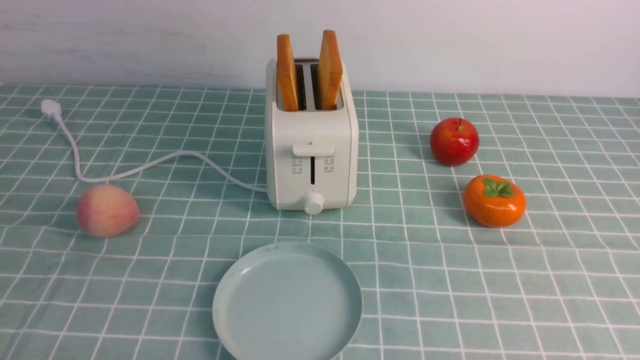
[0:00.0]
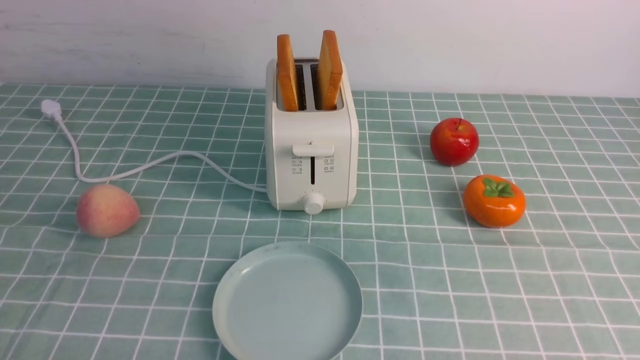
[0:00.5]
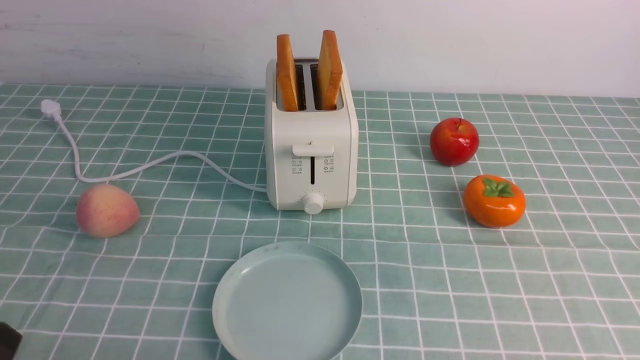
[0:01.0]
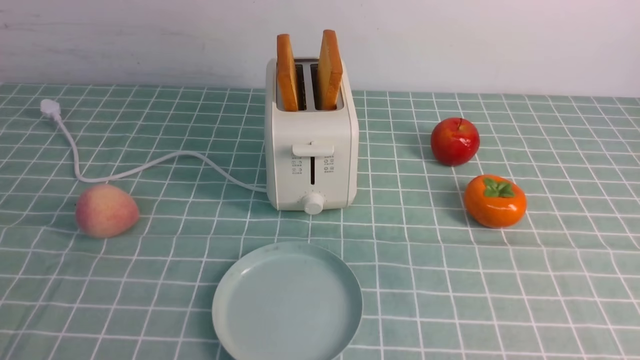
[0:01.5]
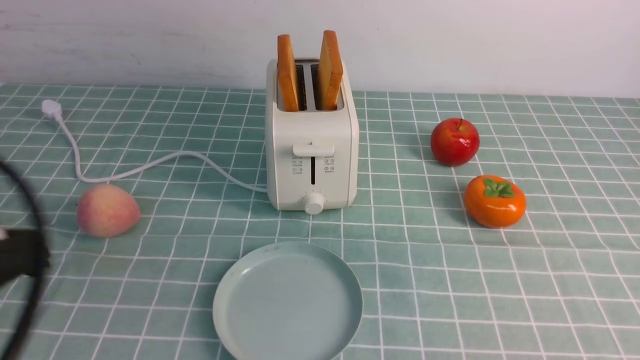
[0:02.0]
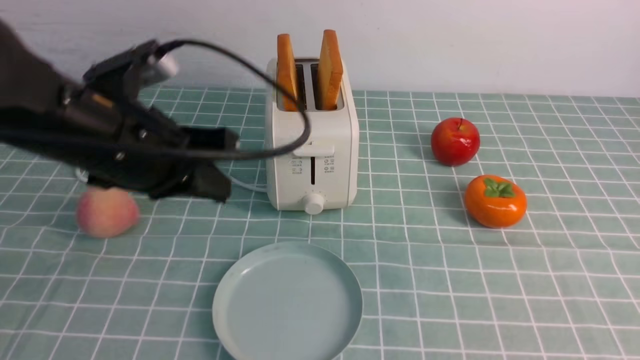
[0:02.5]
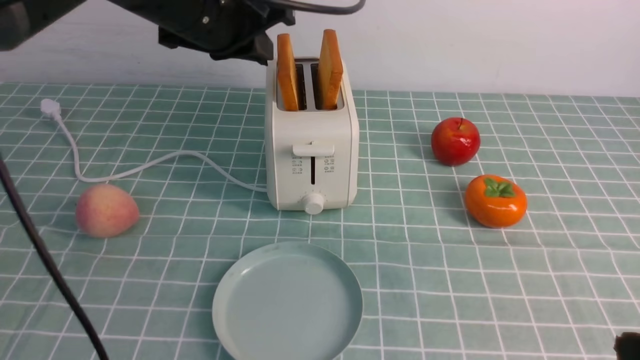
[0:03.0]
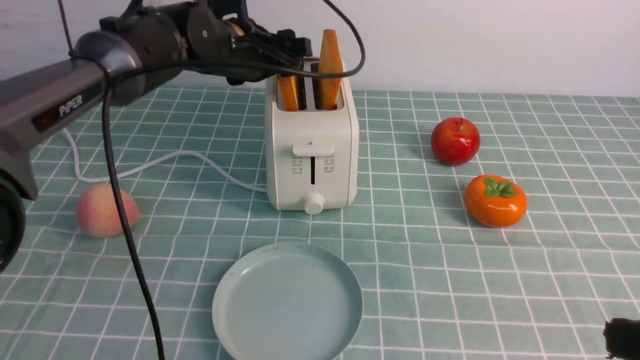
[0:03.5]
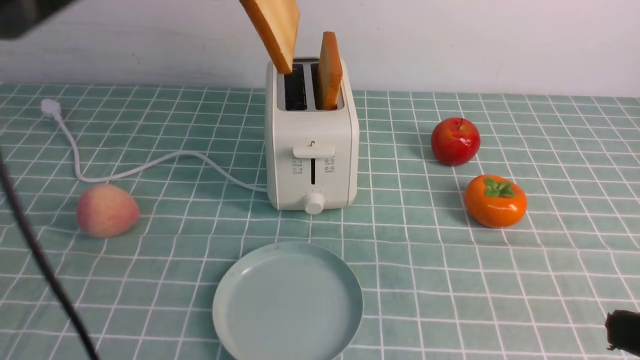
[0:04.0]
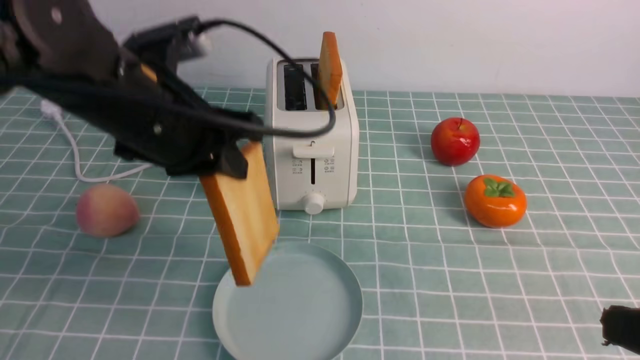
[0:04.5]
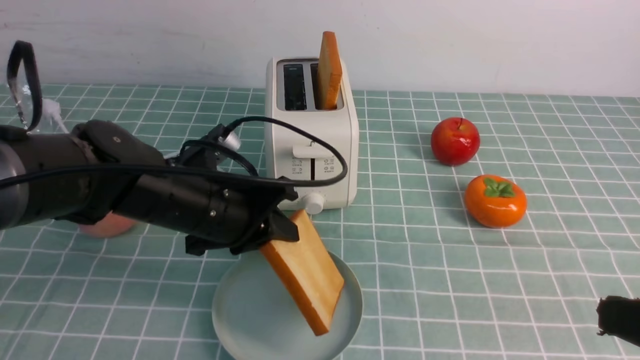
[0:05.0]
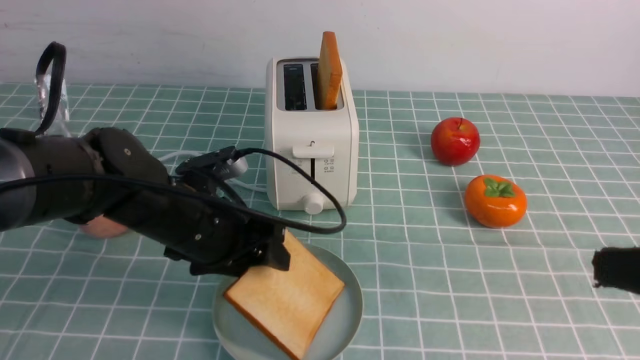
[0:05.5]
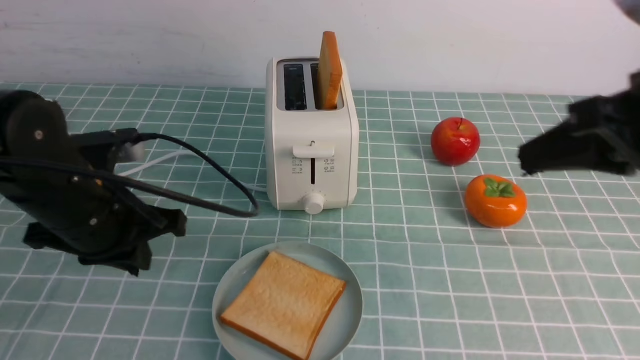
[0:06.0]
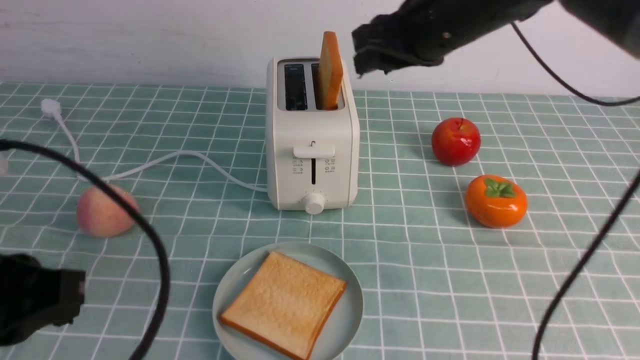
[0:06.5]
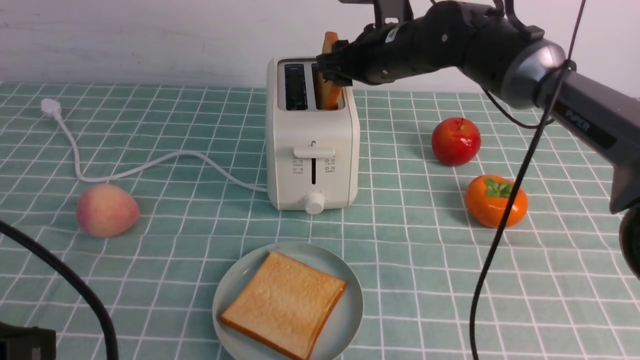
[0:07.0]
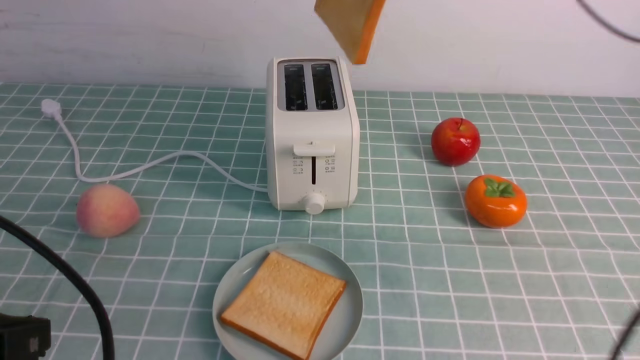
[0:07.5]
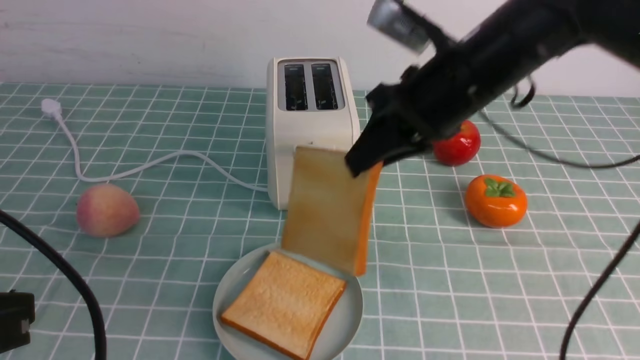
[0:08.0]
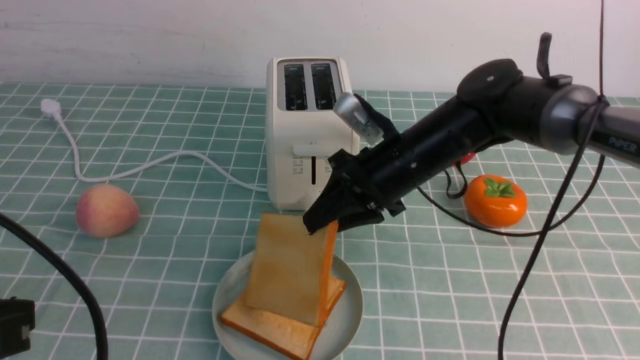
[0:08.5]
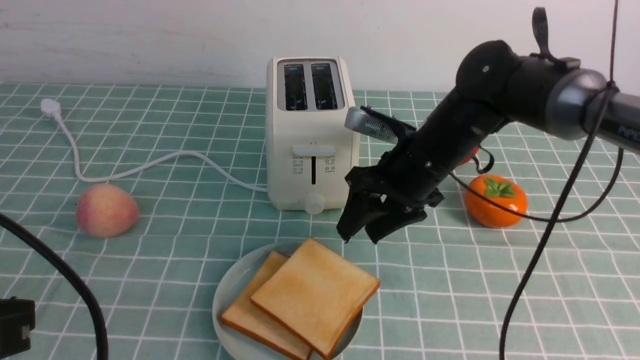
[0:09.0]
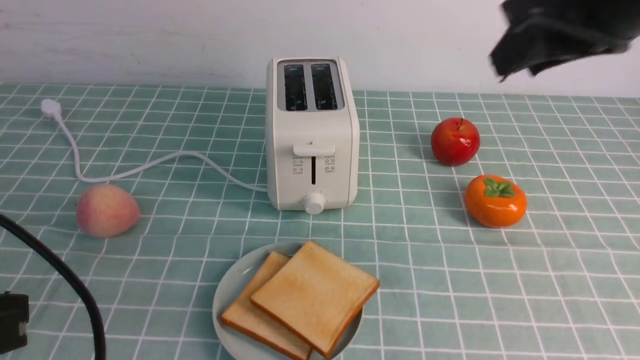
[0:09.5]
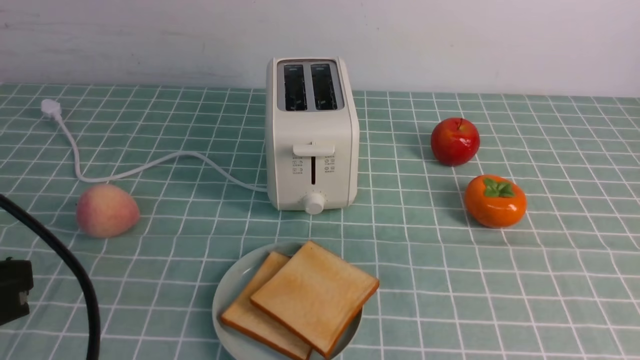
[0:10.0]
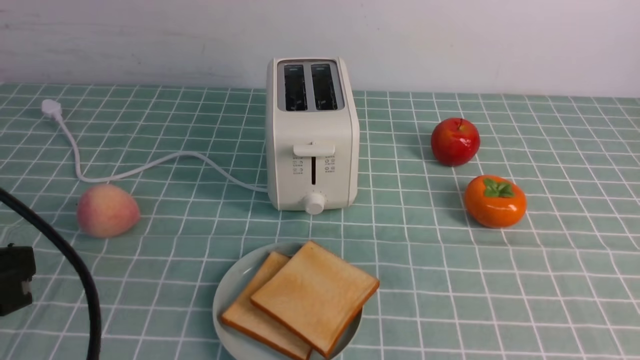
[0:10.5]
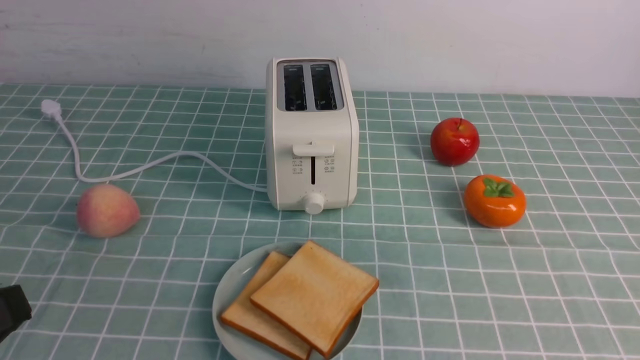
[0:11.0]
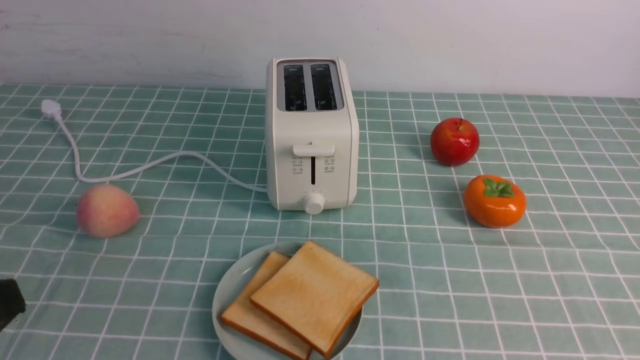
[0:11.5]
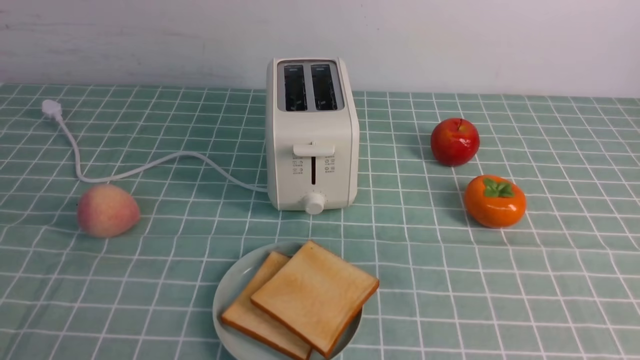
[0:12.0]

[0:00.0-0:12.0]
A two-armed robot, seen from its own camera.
Task of the whole recording: take toasted bread from bread machine on blue coffee table place on plate.
Step, 0:00.0 to 0:04.0: use the left arm to take out a slice of bread.
Step, 0:04.5 to 0:05.5: use the left arm to put a slice of bread into the empty plate.
Step, 0:06.0 to 0:07.0: use the right arm to take out a slice of bread.
Step, 0:07.5 to 0:09.0: use the right arm to put a slice of bread into the plate.
0:00.0 to 0:02.0: The left gripper goes about 20 cm upward and forward, and closes up.
0:02.0 to 0:04.0: The left gripper shifts about 30 cm forward, and opens, then closes once more; the right gripper shifts approximately 10 cm upward, and closes up.
0:04.0 to 0:06.0: The left gripper travels downward, backward and to the left by roughly 20 cm, and opens and closes again. Meanwhile the right gripper moves forward and upward, some 15 cm.
0:06.0 to 0:08.0: The right gripper moves forward, to the left and downward, some 15 cm, and opens, then closes again; the left gripper moves backward, about 15 cm.
0:08.0 to 0:10.0: The right gripper moves backward and to the right, approximately 35 cm, and opens, then closes again.
0:10.0 to 0:12.0: The left gripper heads downward and backward, covering some 10 cm.

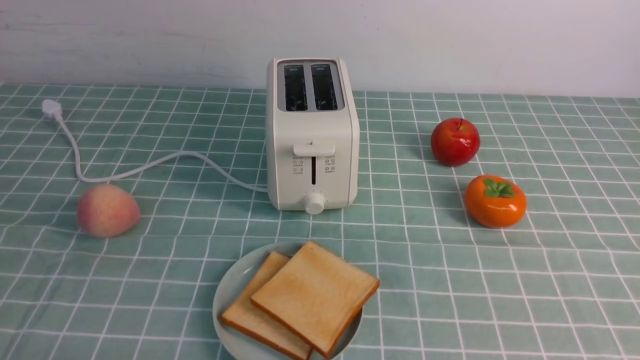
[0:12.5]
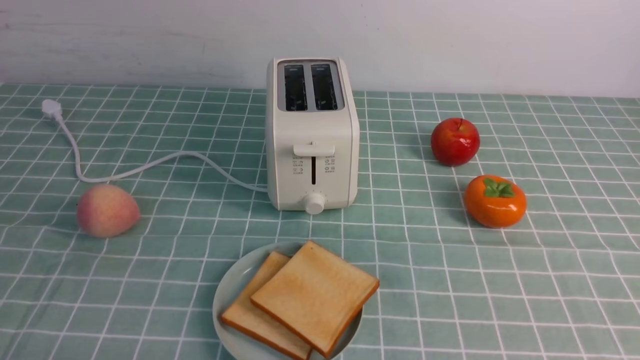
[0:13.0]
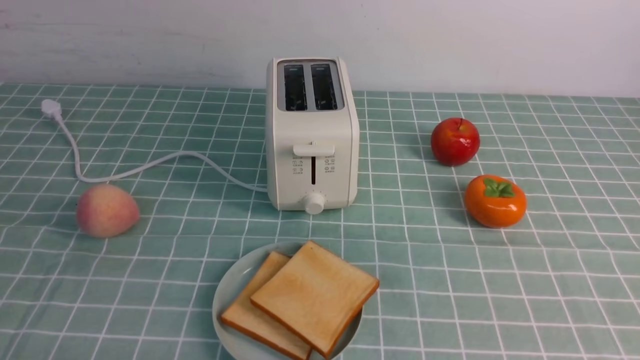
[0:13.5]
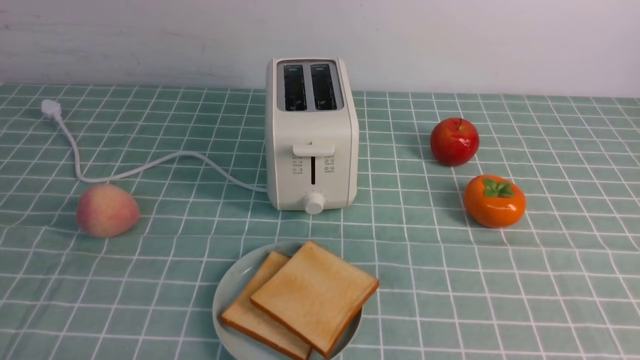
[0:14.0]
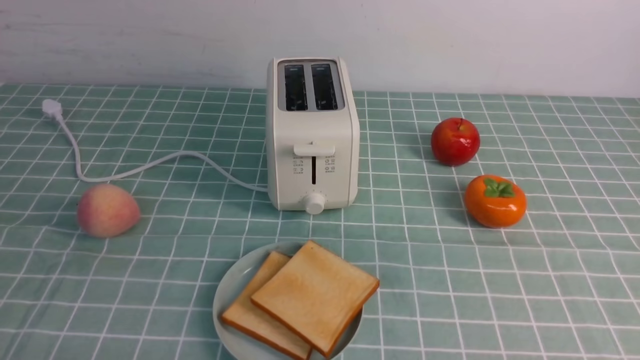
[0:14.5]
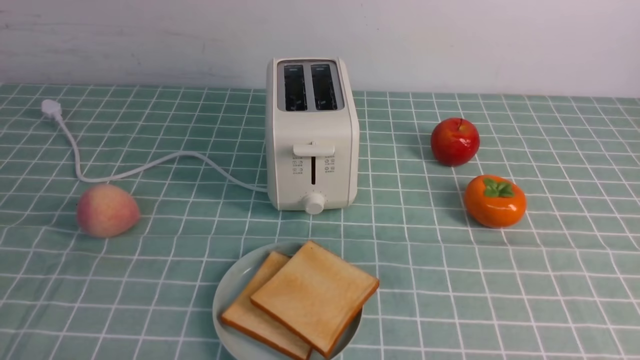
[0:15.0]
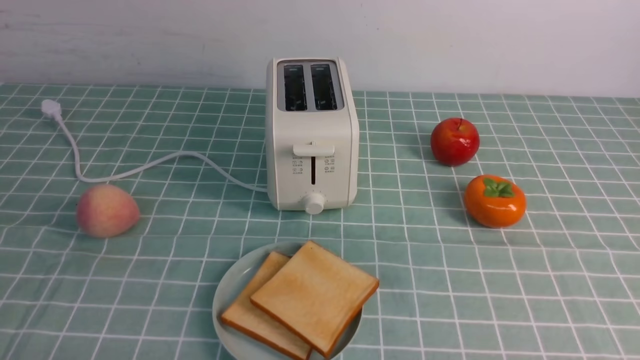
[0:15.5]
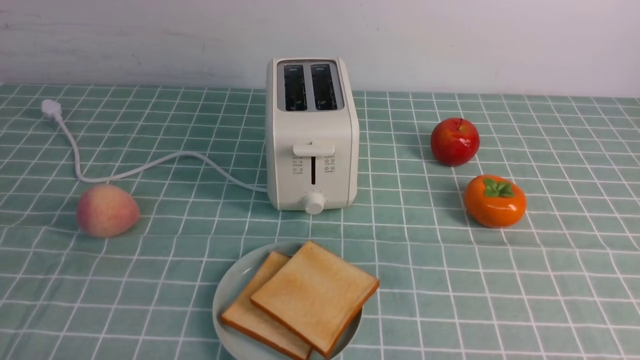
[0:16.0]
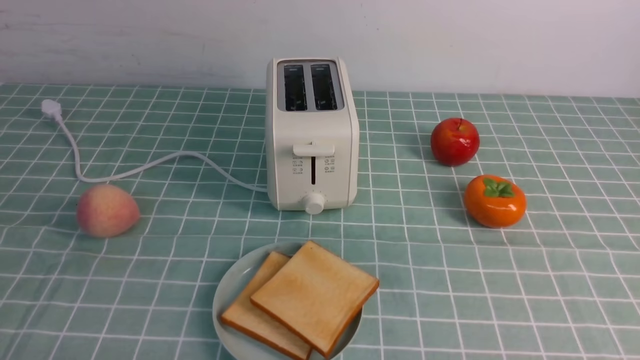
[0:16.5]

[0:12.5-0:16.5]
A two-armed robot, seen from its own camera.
Task of the whole recording: take toasted bread from bread machine on blue coffee table place on plate.
0:14.5 to 0:16.5: The two grippers keep their place.

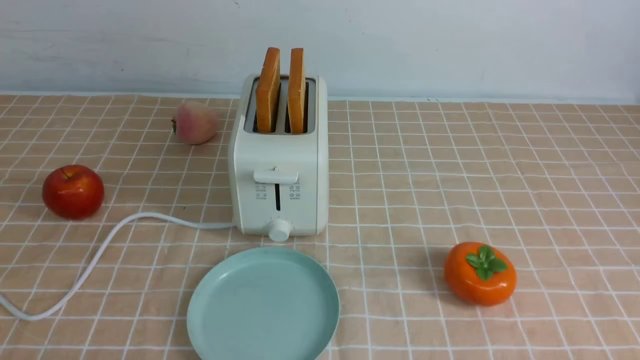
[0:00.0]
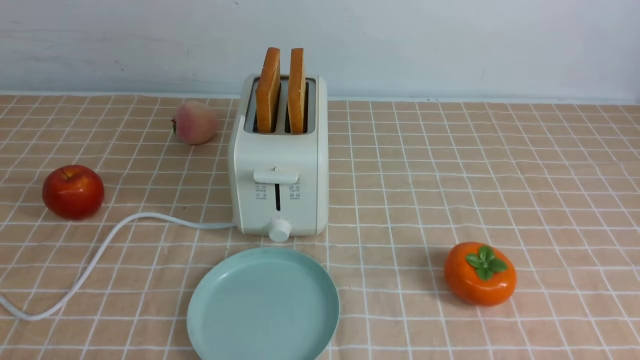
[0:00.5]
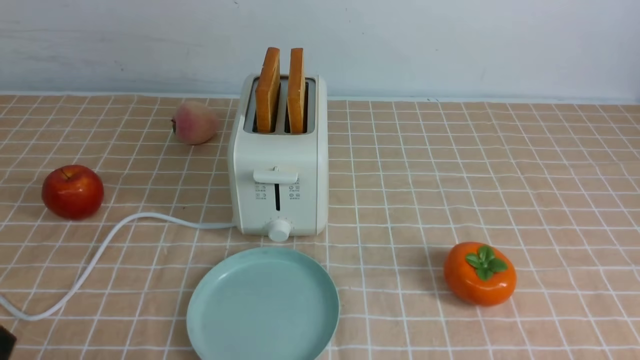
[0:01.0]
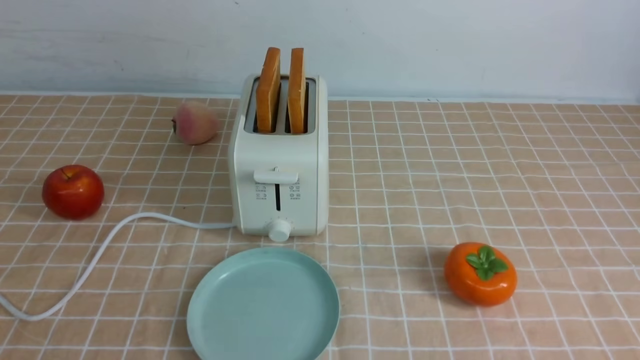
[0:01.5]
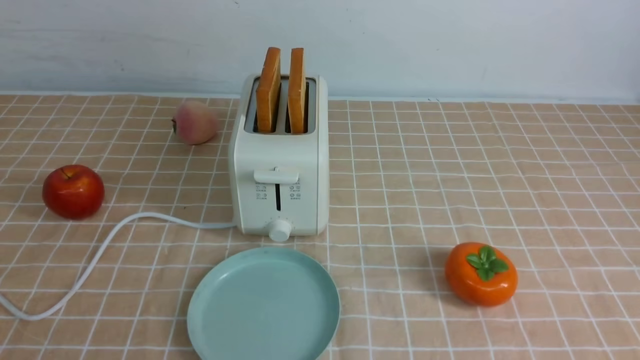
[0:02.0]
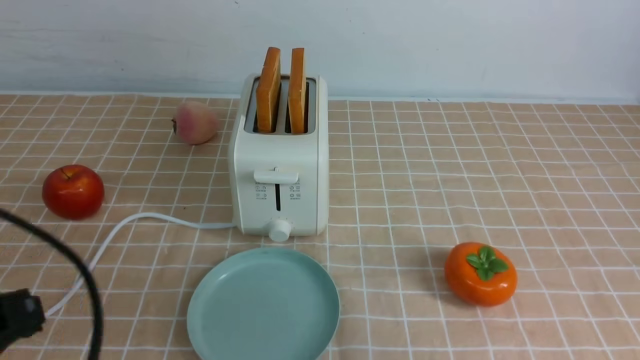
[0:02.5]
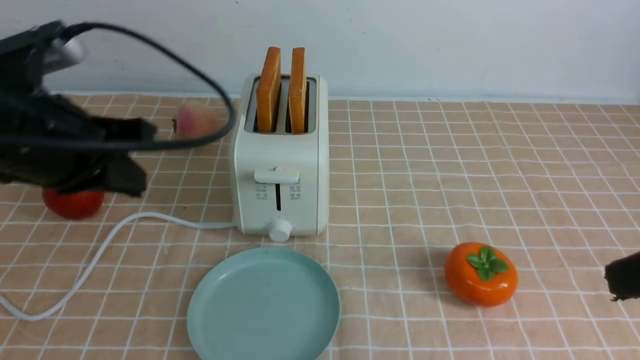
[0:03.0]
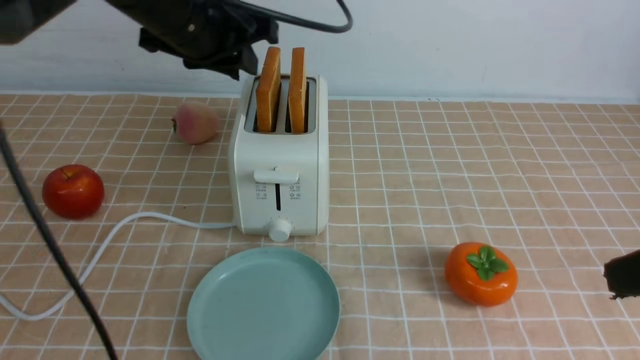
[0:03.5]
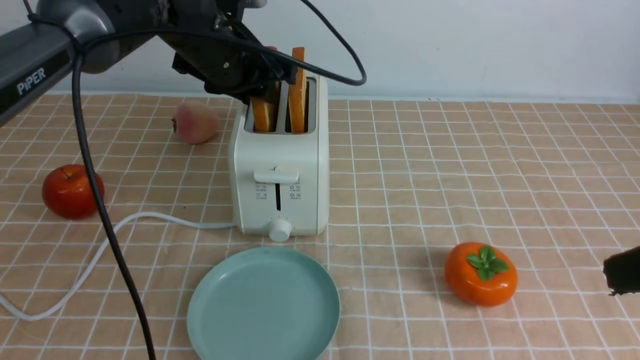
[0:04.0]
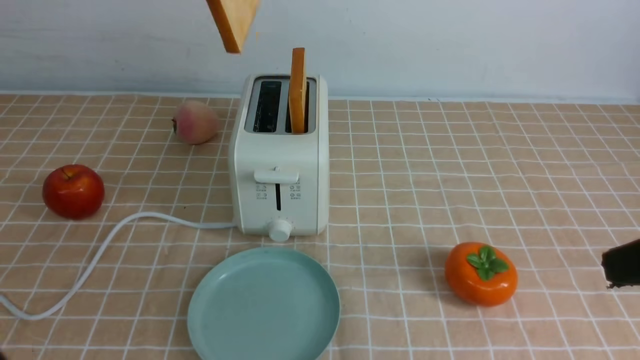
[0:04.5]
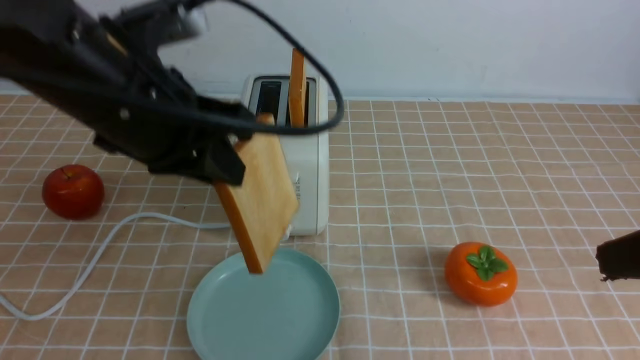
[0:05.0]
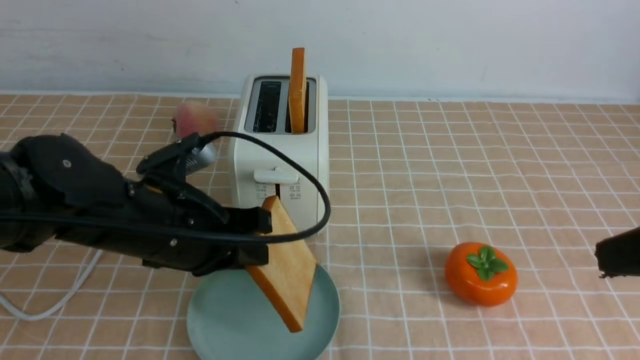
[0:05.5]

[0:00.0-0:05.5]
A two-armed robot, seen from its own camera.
Task of the whole recording: take toasted bread from bread machine on light coffee tablecloth place on plate.
Step, 0:00.0 to 0:04.0: use the left arm to take out a slice of bread.
0:02.0 to 0:03.5: The left gripper heads forward, upward and to the right, covering some 40 cm, and closes and opens again; the right gripper travels upward, forward and to the left by some 15 cm, and closes.
0:03.5 to 0:05.5: The left gripper goes up and down, approximately 20 cm each way, reversing 2 times, and opens, then closes again.
